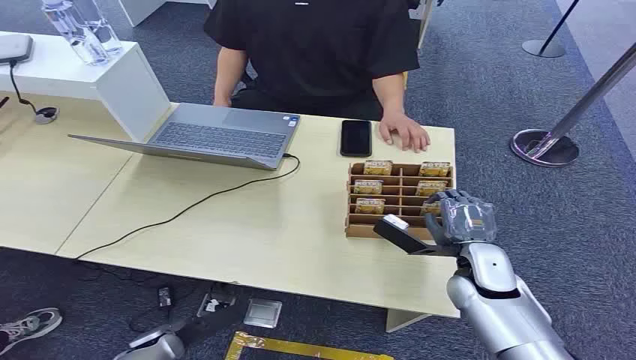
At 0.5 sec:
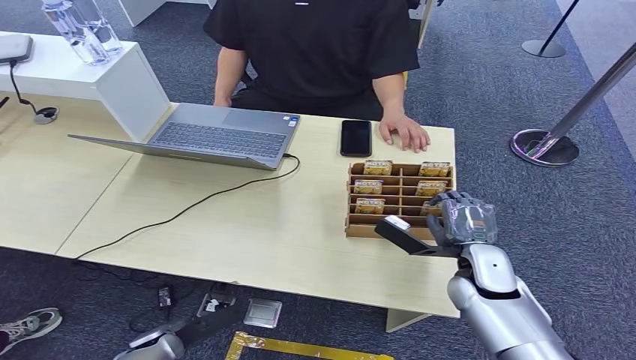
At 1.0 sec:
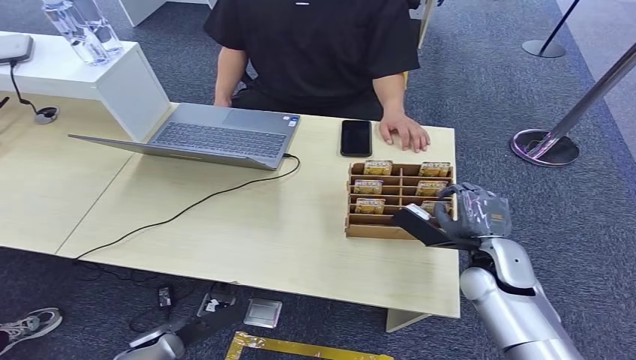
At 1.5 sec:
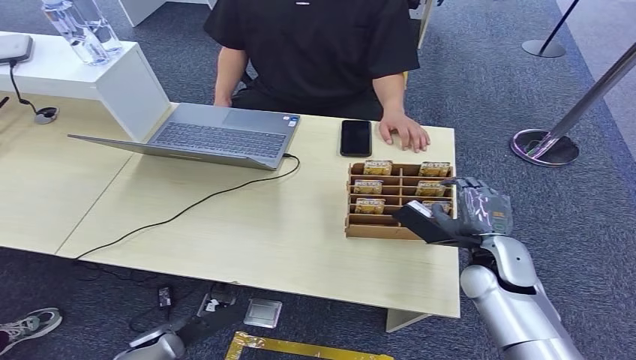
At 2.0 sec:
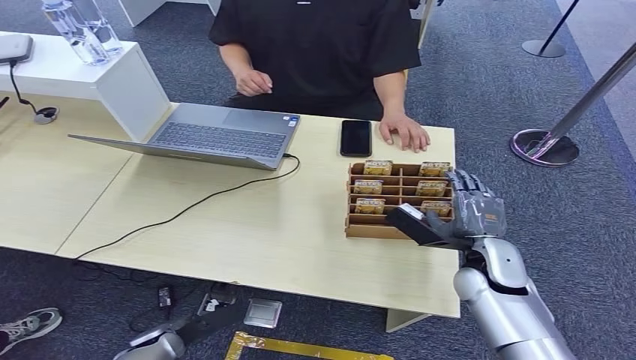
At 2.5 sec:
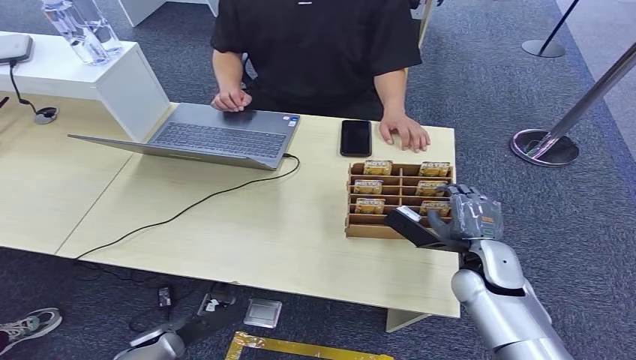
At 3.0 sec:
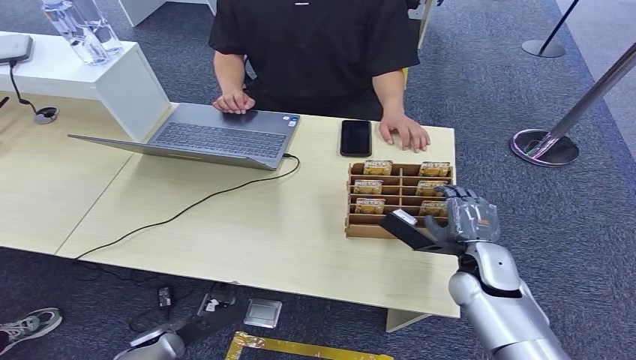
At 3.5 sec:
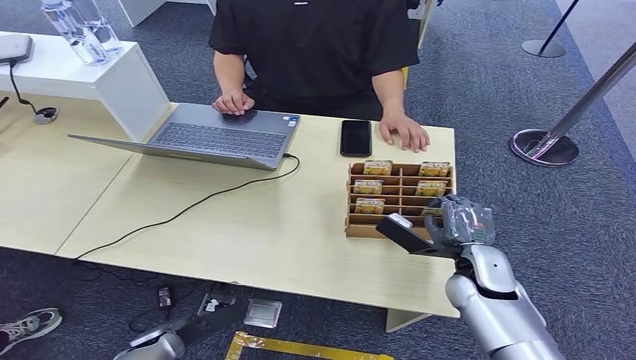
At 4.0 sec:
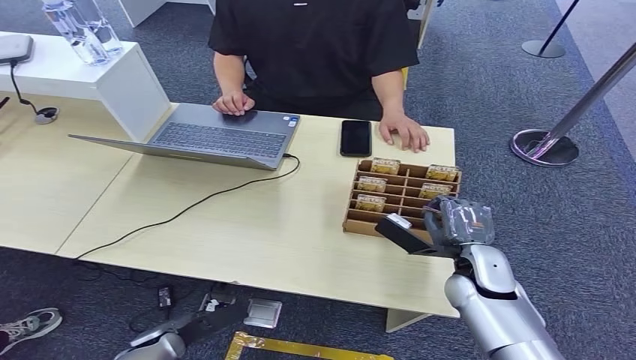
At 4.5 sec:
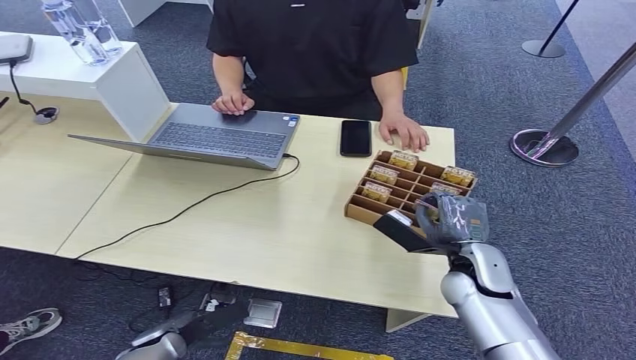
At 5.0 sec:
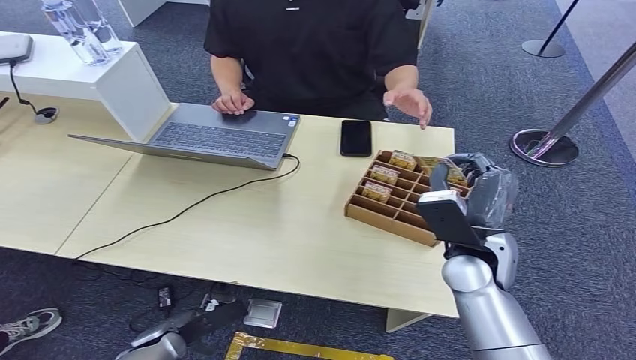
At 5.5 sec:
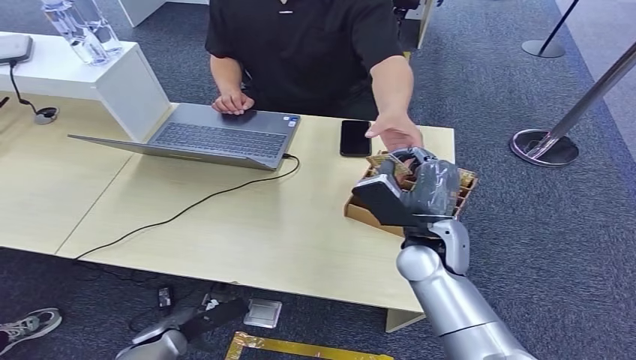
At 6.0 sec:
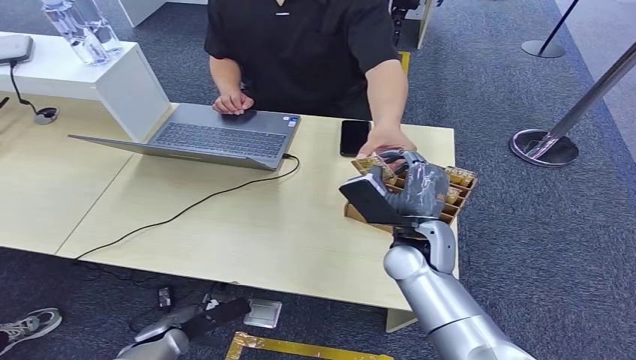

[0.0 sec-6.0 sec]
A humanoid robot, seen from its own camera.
Step, 0.0 sec to 5.0 sec: Pick up the key card from the card box.
Step, 5.5 sec to 6.0 sec: Hand the key card to the target.
2.0 sec to 4.0 sec: The hands stay close to where they were, moving slightly.
4.0 sec to 6.0 sec: The right hand moves to the left and upward, some 15 cm.
